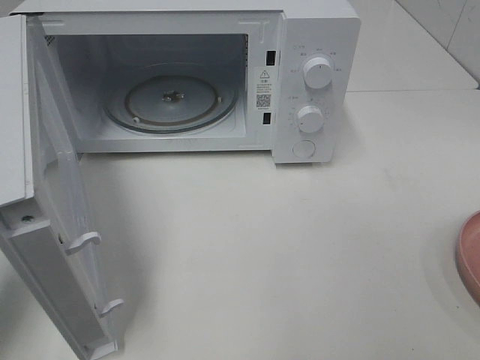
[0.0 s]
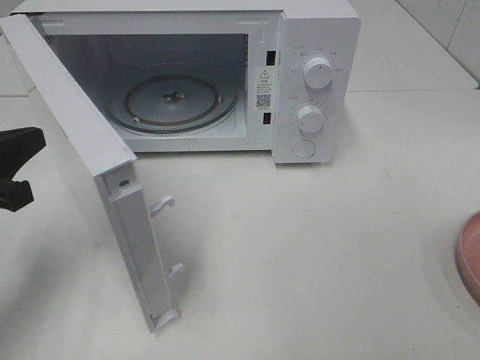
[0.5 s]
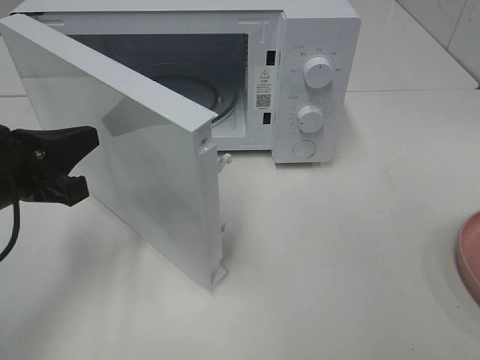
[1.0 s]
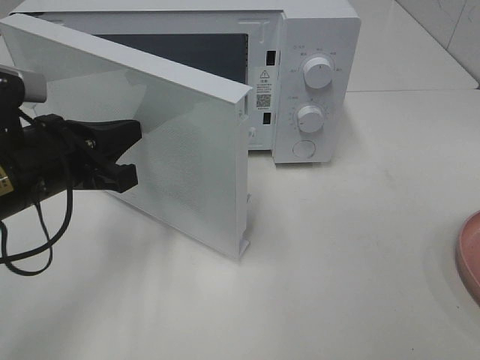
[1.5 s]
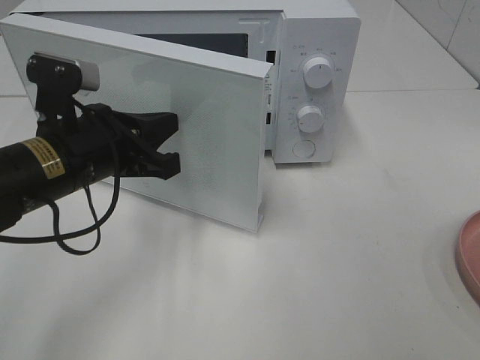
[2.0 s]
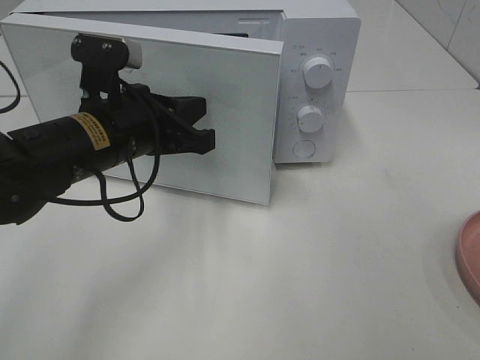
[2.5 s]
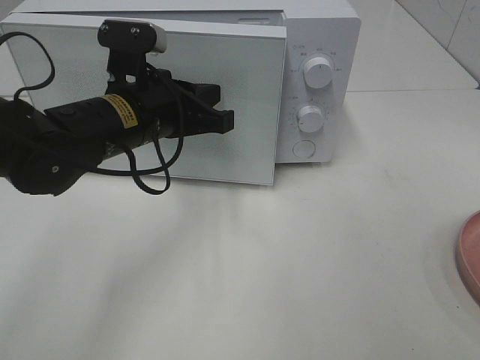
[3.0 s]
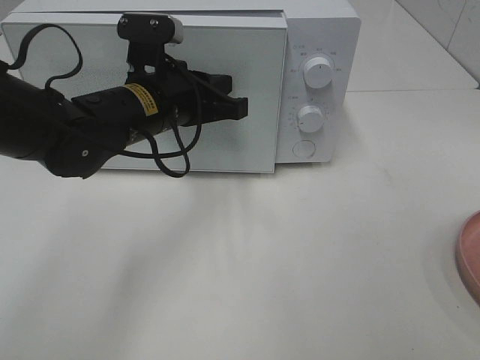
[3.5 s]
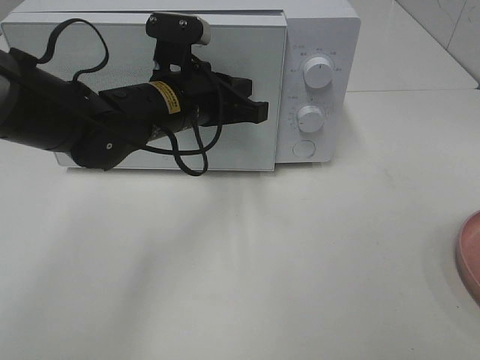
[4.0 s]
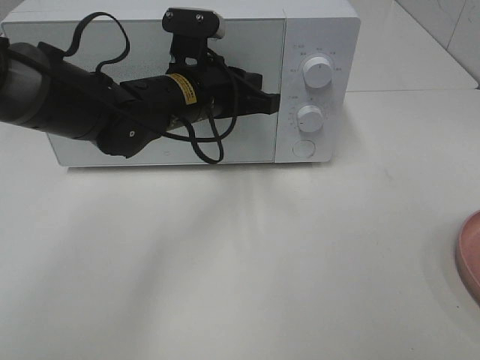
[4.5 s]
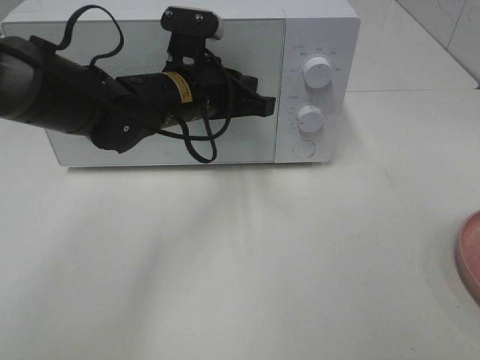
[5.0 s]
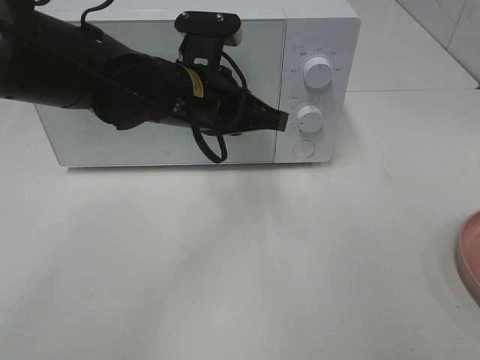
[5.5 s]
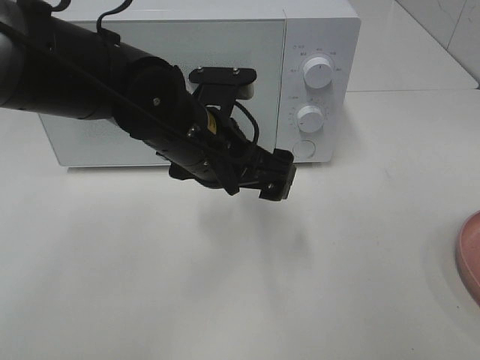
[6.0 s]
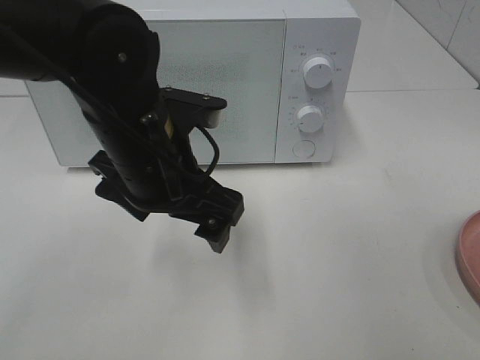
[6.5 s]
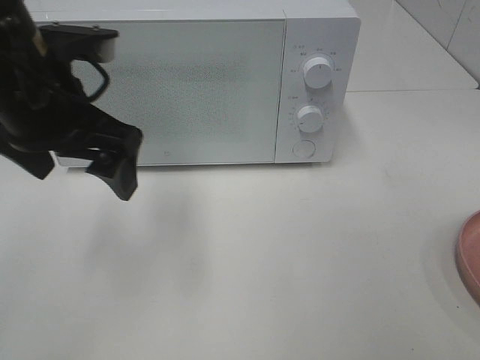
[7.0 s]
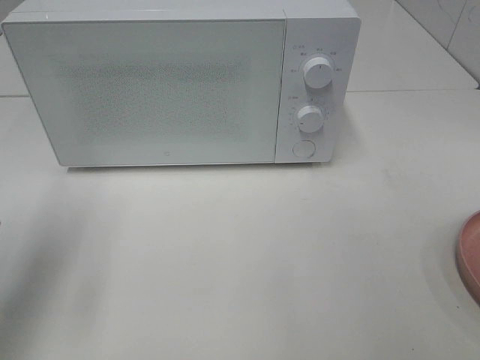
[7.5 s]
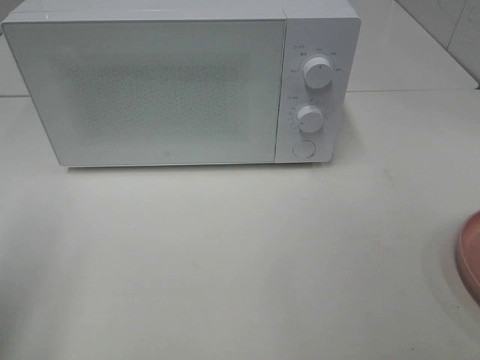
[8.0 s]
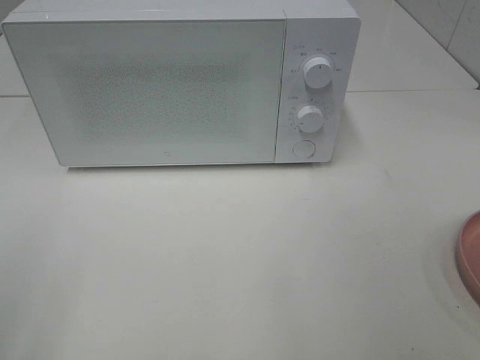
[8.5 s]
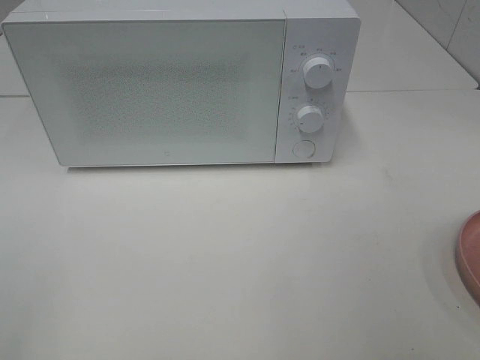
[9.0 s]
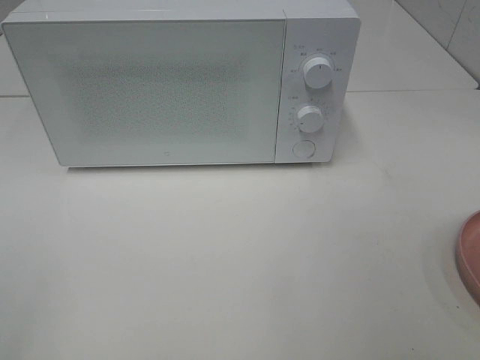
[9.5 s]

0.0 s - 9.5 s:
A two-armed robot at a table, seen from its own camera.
Task of the whole recording: Heat the burger.
Step, 0.0 s - 5.0 s: Left hand: close the microwave door.
0.0 s - 2.0 s: The left gripper is displaced to the right and forward by about 15 cm.
2.0 s - 4.0 s: The left gripper travels to the right and forward by some 10 cm.
5.5 s - 7.5 s: The left gripper travels to the left and backward by roughly 25 cm, and opens up.
7.5 s - 9.5 s: The left gripper heads backward, covering about 20 cm.

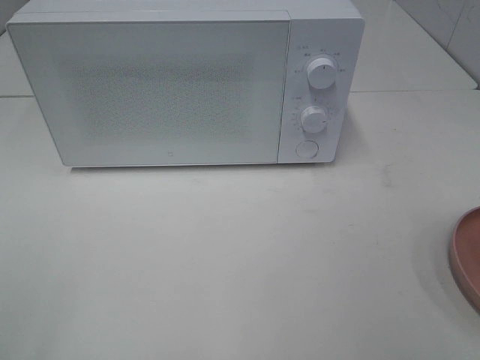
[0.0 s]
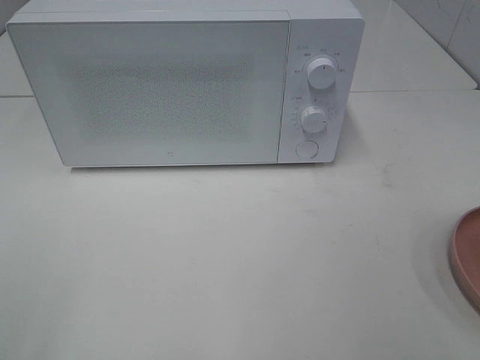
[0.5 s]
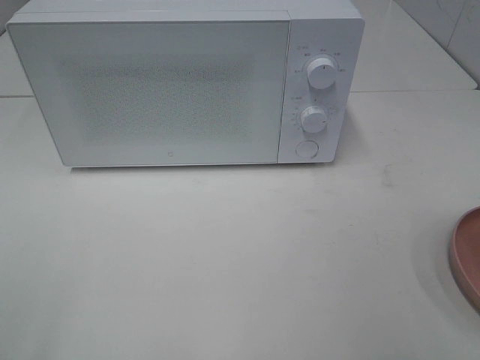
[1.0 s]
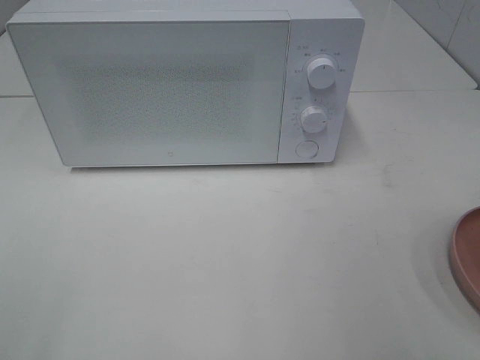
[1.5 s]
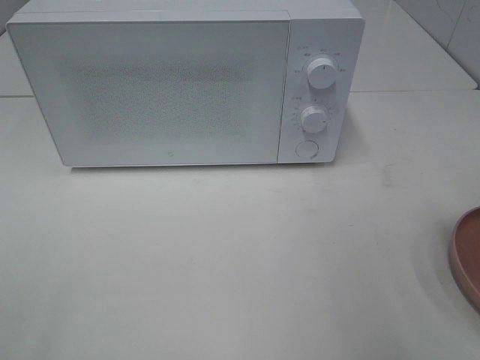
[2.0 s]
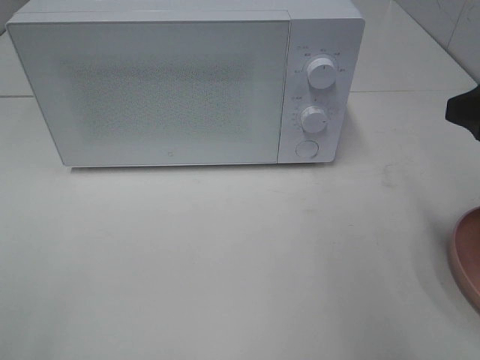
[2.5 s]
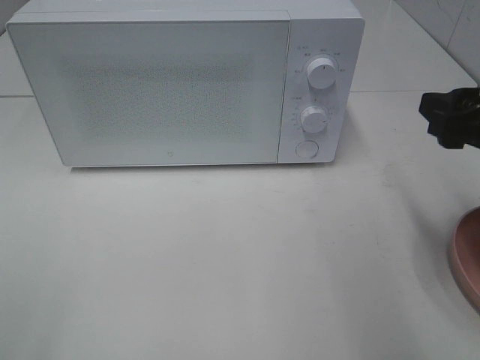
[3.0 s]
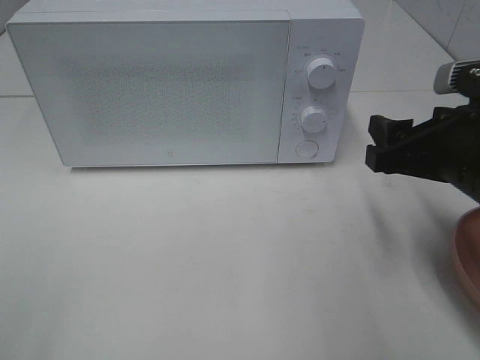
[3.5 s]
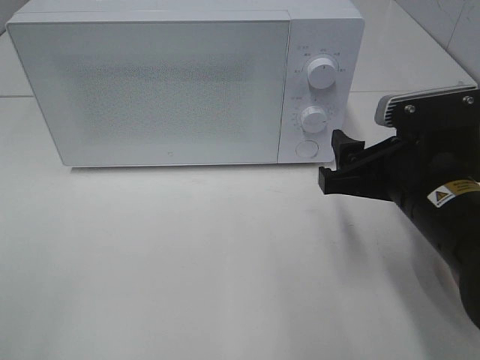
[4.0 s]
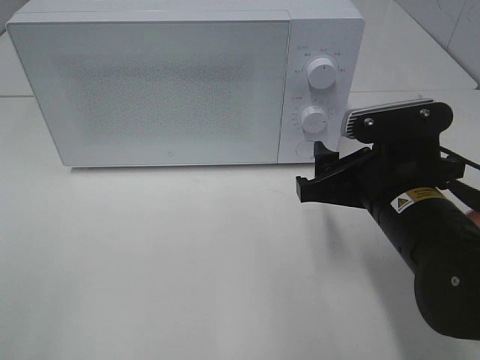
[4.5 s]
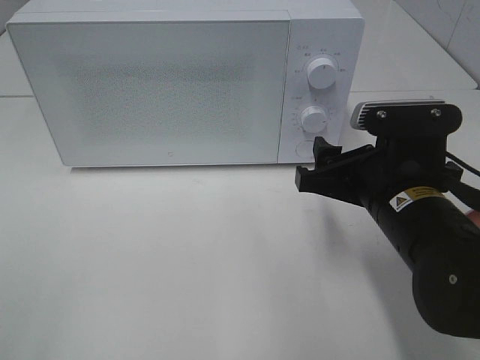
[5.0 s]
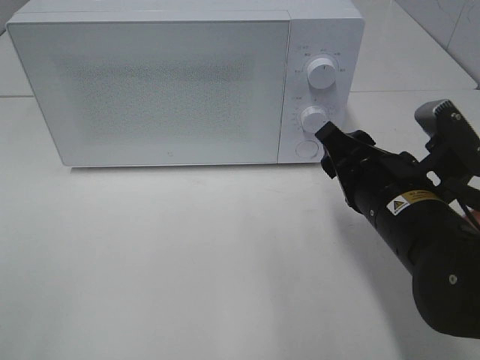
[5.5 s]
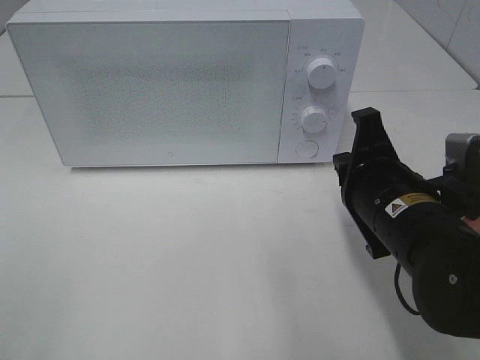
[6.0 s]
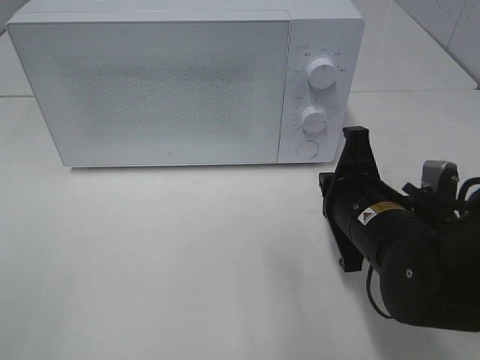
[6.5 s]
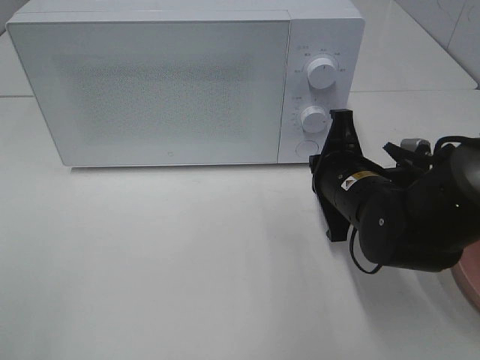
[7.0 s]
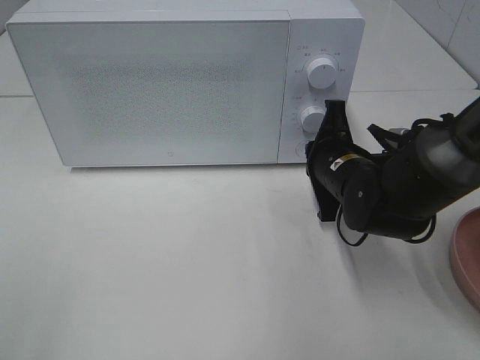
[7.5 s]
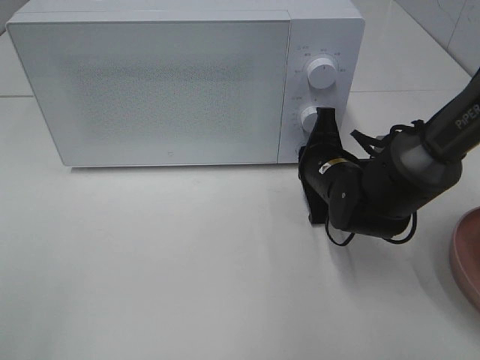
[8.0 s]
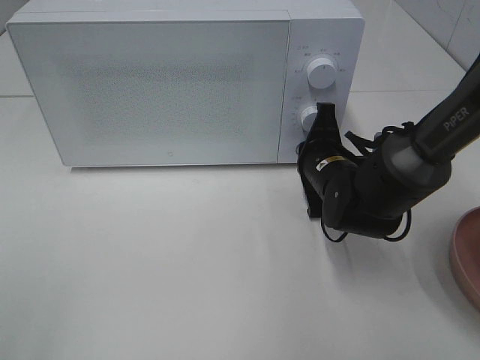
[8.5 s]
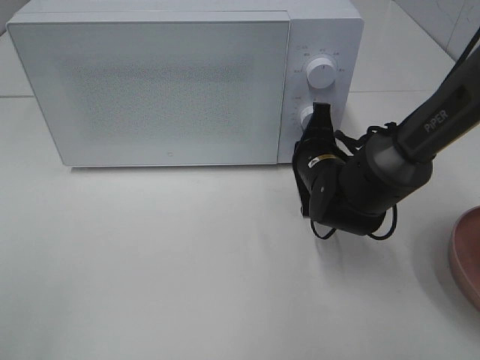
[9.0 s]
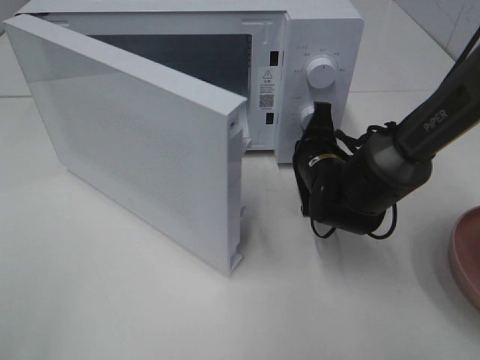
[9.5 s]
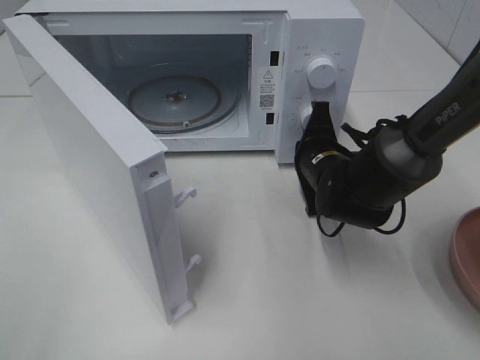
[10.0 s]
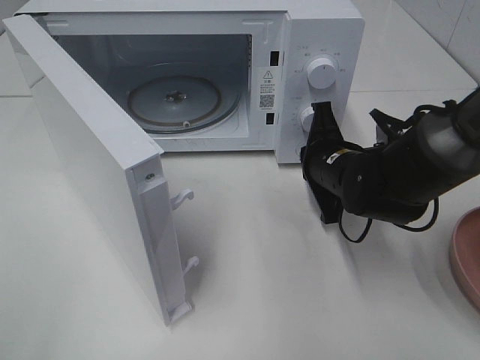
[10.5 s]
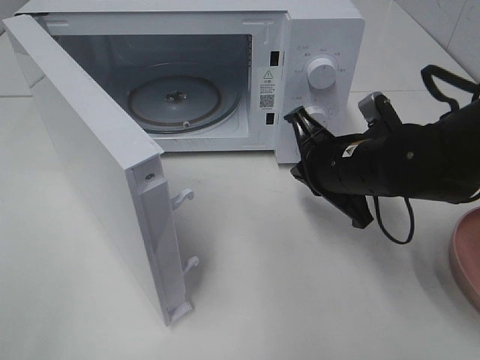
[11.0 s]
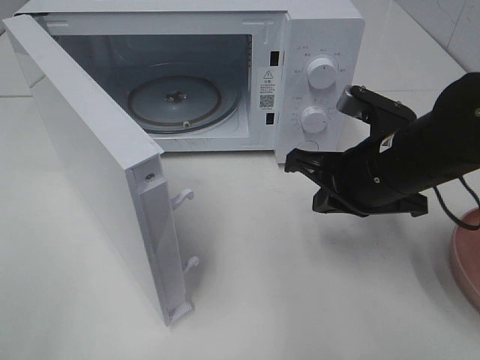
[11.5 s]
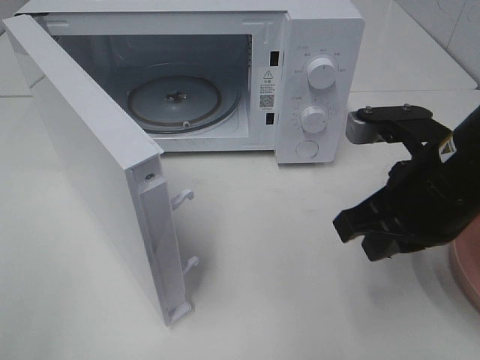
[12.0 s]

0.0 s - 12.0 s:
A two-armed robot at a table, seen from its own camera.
Task of the whole recording: Heat the burger.
Step, 0.0 s - 10.5 s: Right hand: press the switch.
2.0 s - 4.0 s: The right gripper heads downward, to the left and forward, covering about 15 cm.
4.0 s - 6.0 s: The right gripper closes its fingers.
6.0 s - 8.0 s: The right gripper is displaced forward and downward by approximately 15 cm.
10.0 s - 12.0 s: The right gripper heads backward and upward, covering roughly 20 cm.

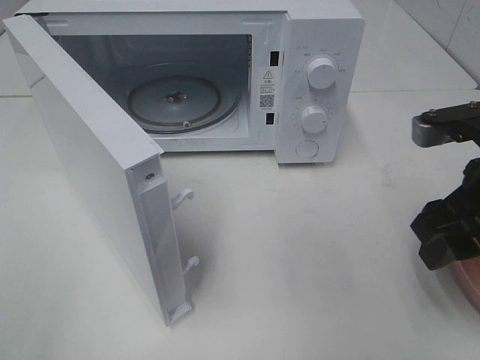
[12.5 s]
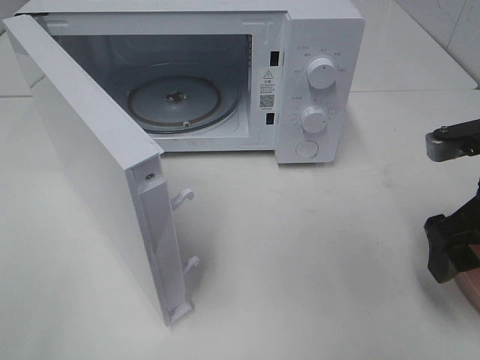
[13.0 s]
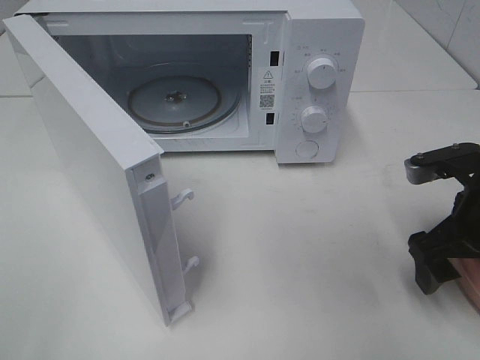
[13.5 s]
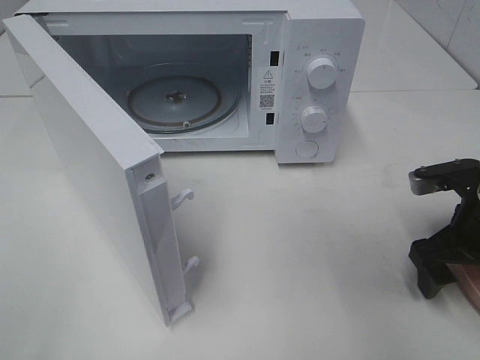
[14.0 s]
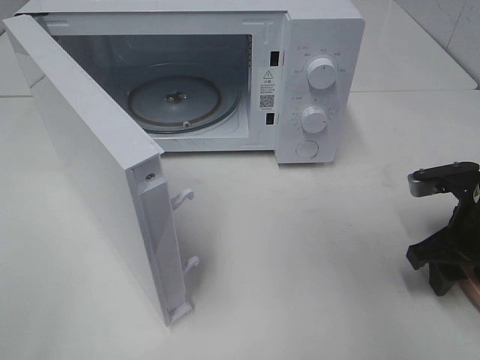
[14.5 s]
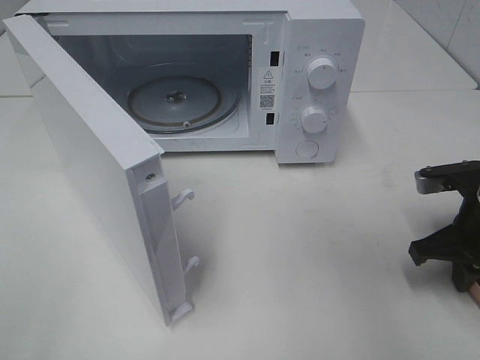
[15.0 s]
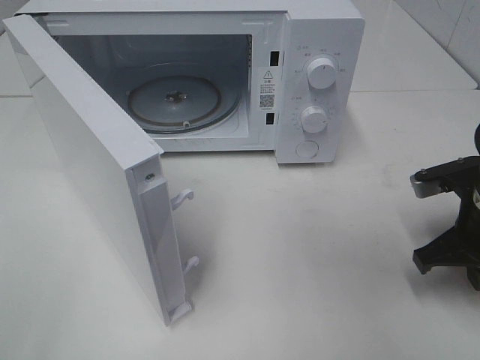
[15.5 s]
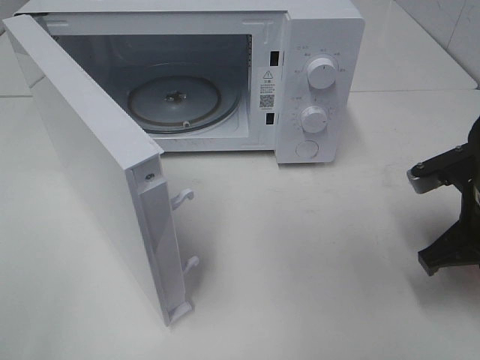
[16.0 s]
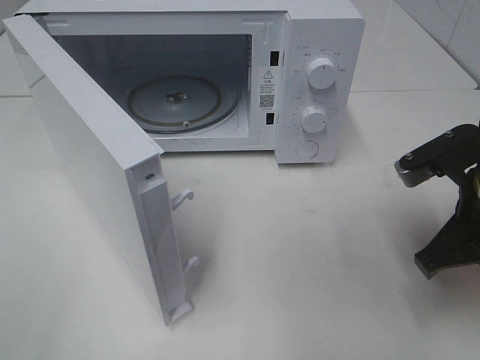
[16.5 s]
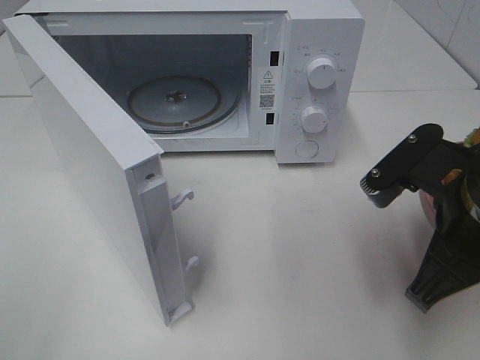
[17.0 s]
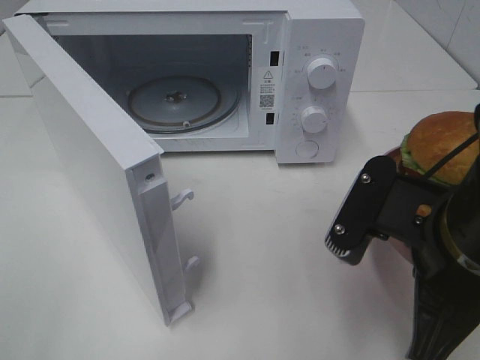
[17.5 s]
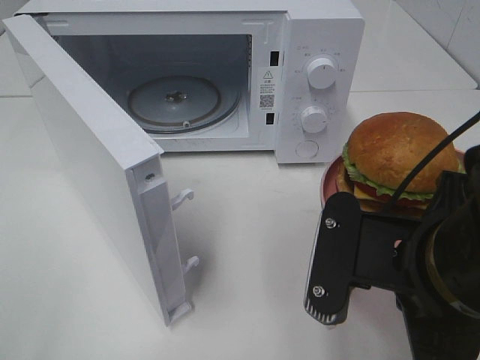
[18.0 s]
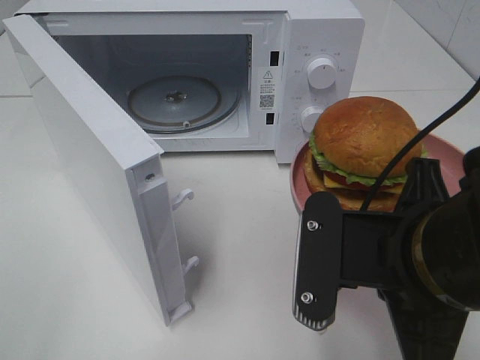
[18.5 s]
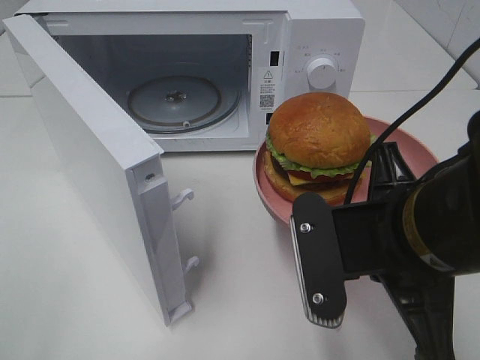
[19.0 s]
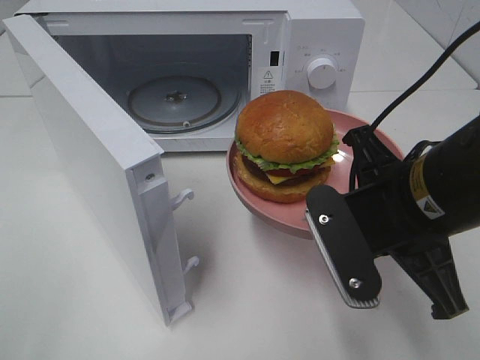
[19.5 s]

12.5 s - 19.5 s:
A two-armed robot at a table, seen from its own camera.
Task of the whole recording: Heat the burger.
Step, 12.5 s - 15.0 s: Right hand: grab the plate with the hamburger.
12.5 s - 14.5 s: The right gripper moves downward, approximately 10 cm.
14.5 s - 16.0 s: The right gripper moves about 5 cm, and closes up.
16.0 s - 17.5 s: The right gripper moves to the left, backward and upward, roughly 15 cm.
